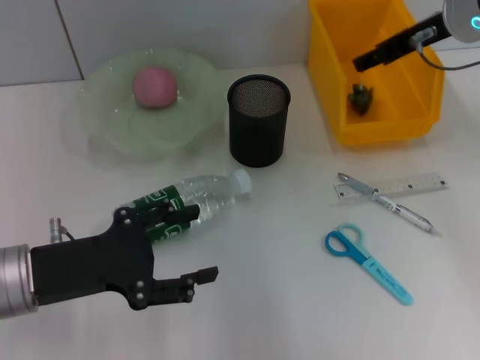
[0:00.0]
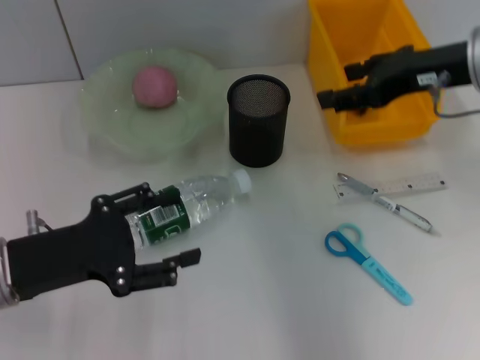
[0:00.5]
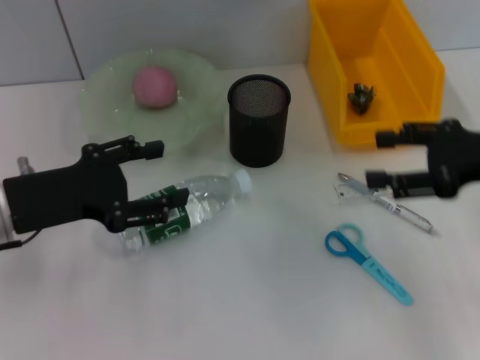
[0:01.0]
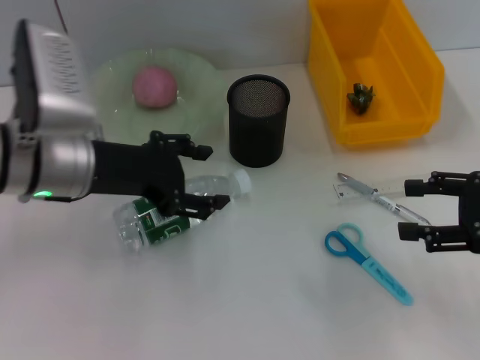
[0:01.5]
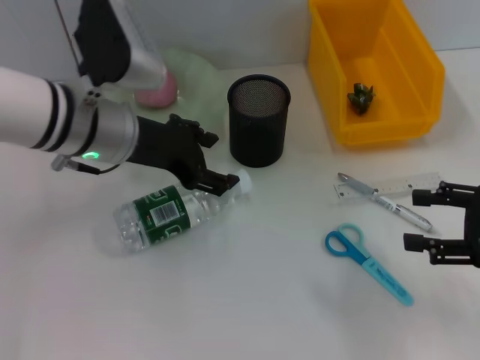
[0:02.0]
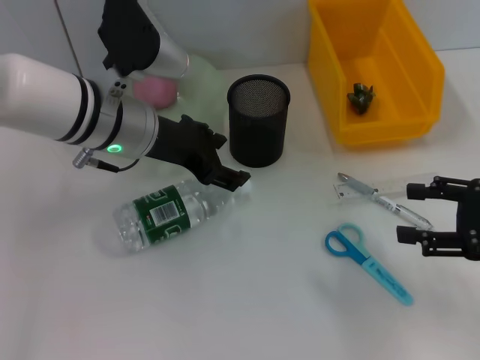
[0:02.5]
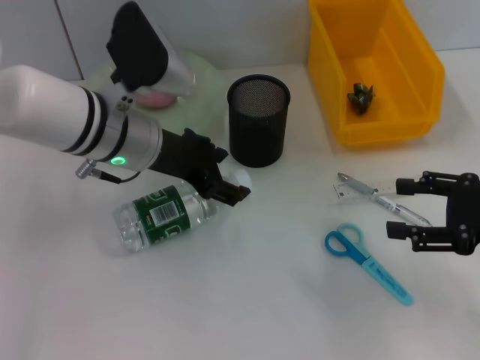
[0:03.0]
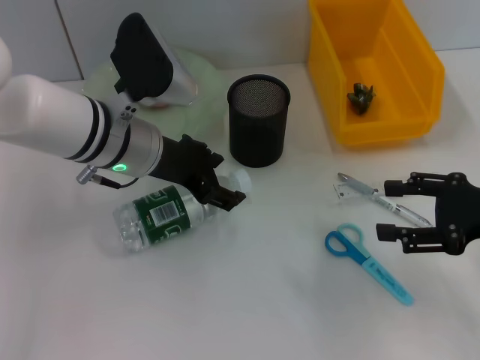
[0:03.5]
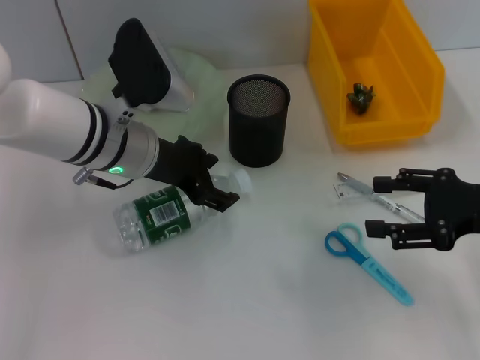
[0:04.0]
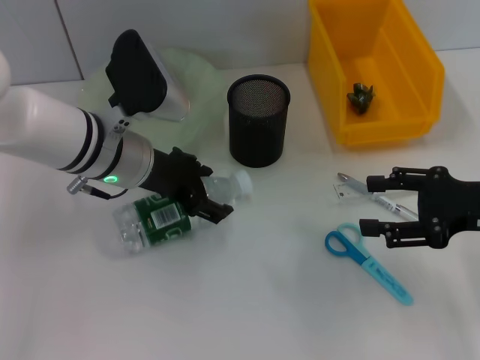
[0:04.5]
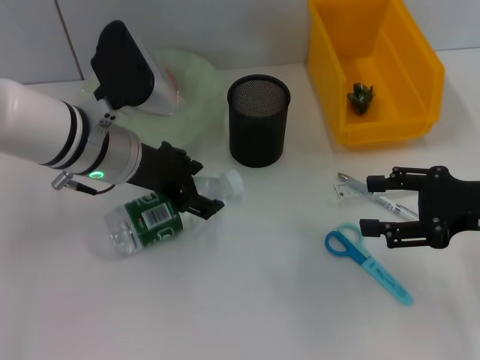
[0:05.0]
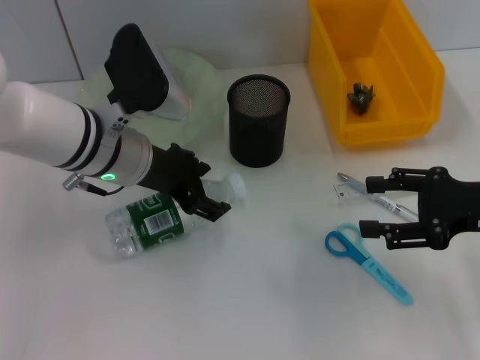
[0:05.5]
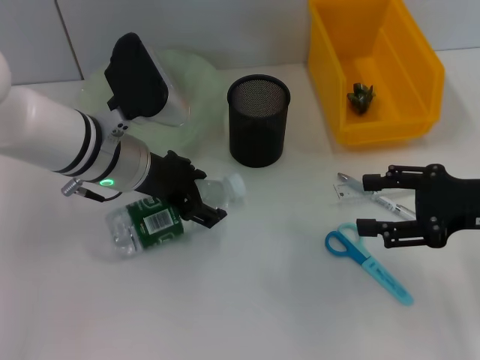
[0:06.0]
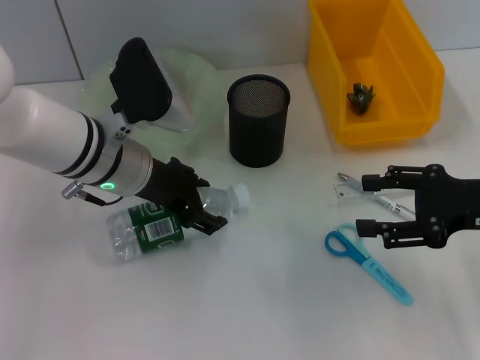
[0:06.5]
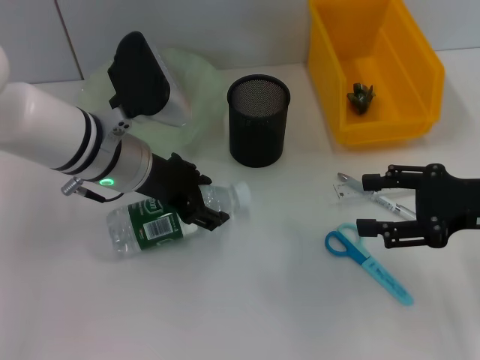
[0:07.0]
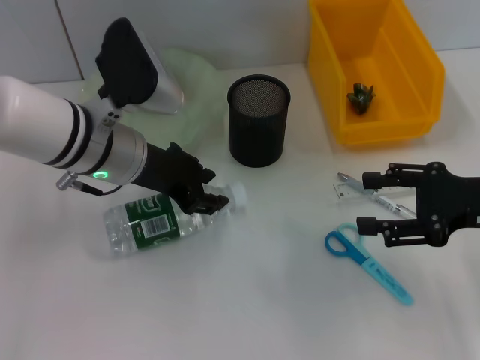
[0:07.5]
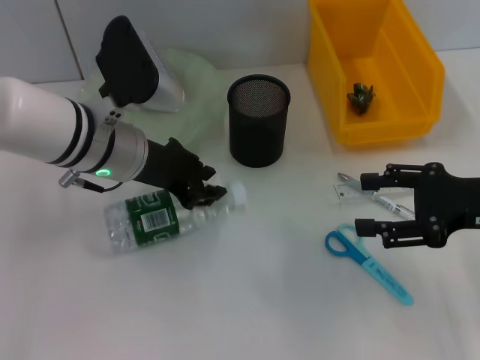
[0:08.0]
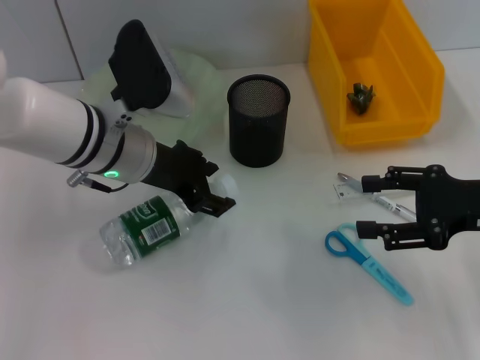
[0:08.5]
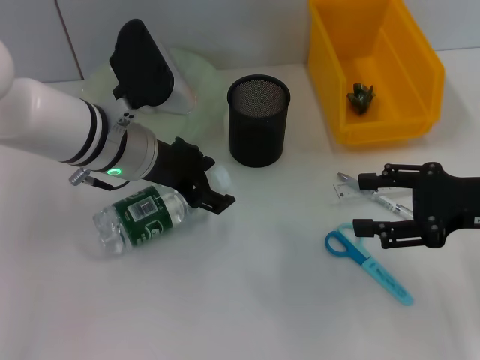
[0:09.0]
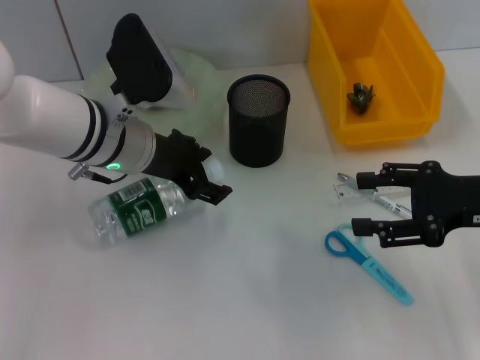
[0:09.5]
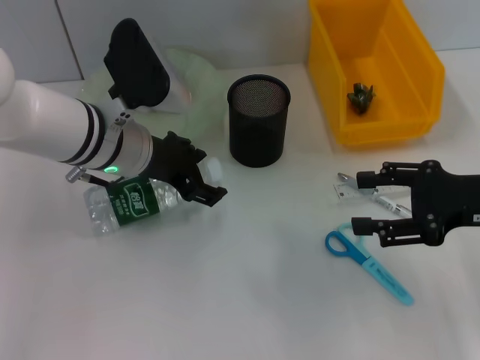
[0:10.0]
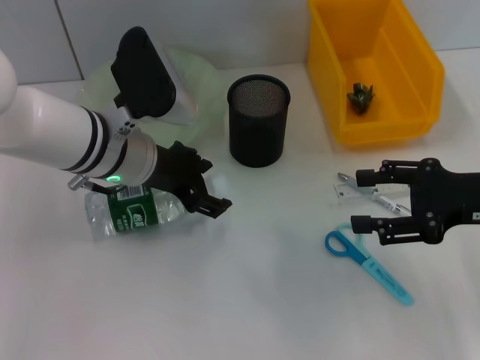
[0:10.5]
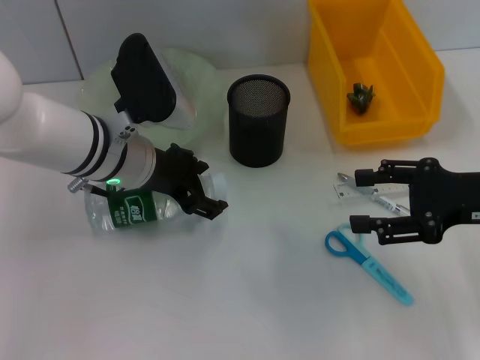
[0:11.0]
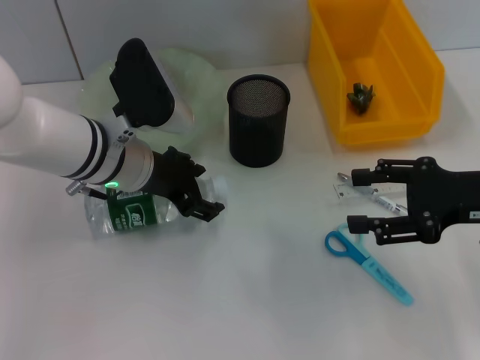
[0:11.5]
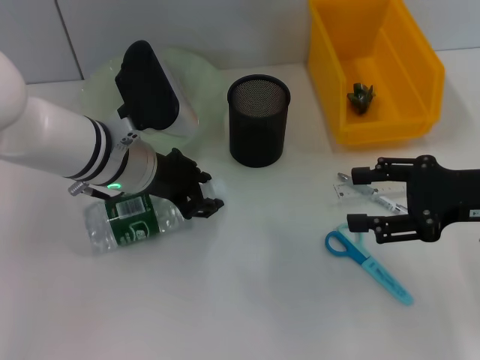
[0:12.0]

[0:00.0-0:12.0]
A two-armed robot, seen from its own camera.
0:00.0 to 0:02.0: The right gripper is displaced backward, downward and to the right by about 25 cm; the left gripper shifts approximately 15 cm forward, to the right and upward.
0:02.0 to 0:06.0: There are only small adjustments of the grippers.
0:06.0 to 0:08.0: The left gripper closes its fingers.
0:08.0 to 0:10.0: The left gripper opens up.
0:10.0 to 0:12.0: The grippers make only small movements.

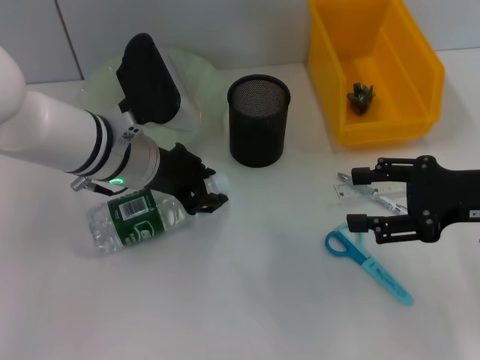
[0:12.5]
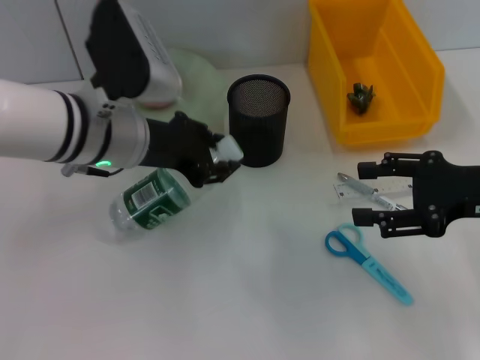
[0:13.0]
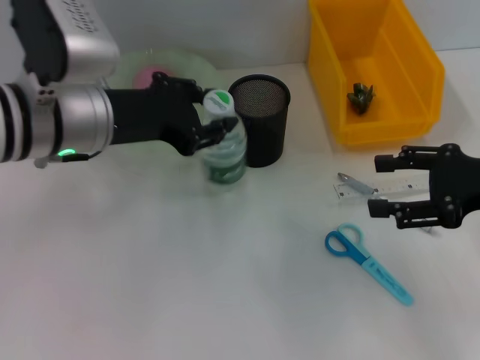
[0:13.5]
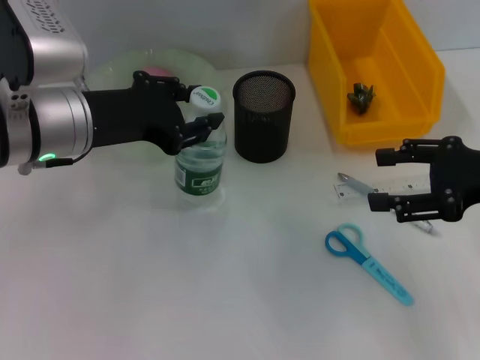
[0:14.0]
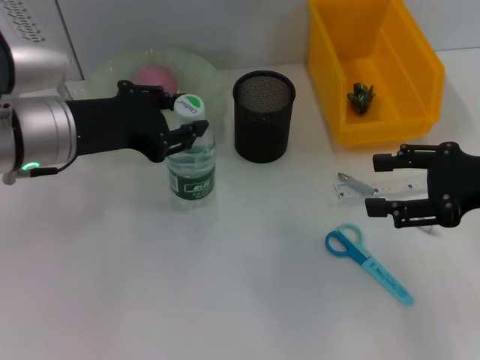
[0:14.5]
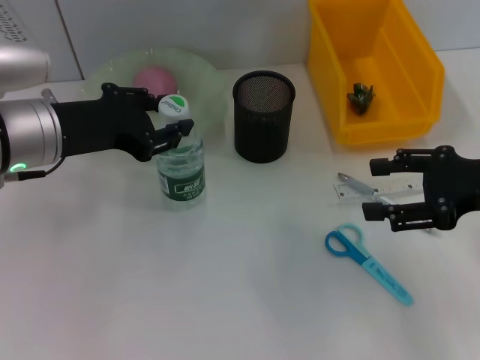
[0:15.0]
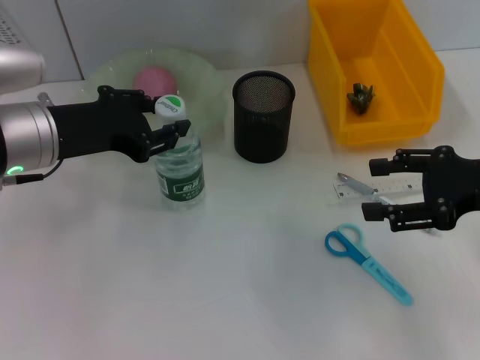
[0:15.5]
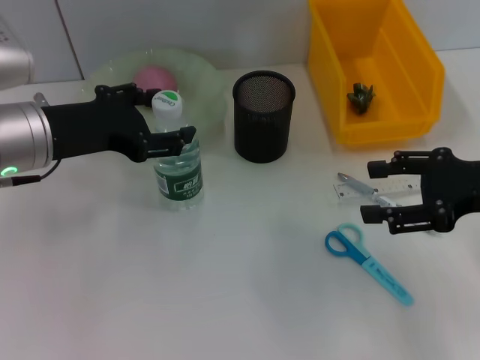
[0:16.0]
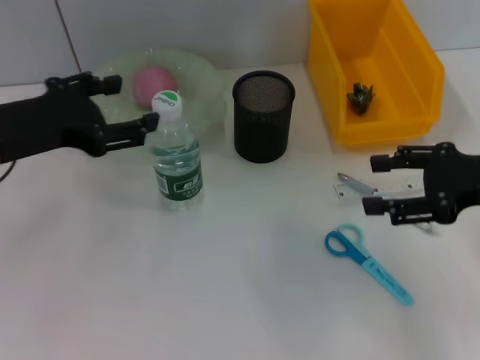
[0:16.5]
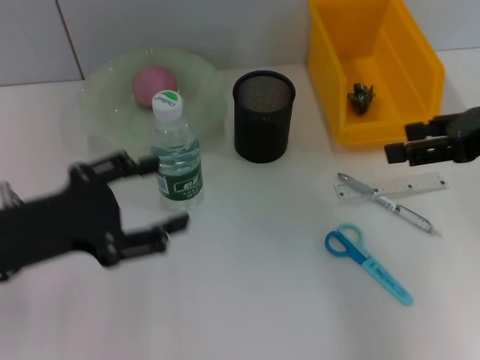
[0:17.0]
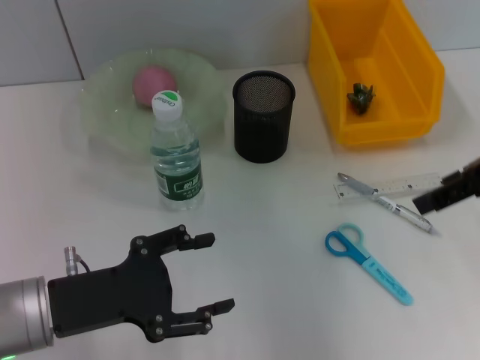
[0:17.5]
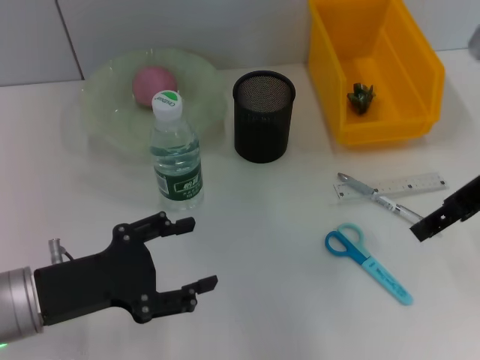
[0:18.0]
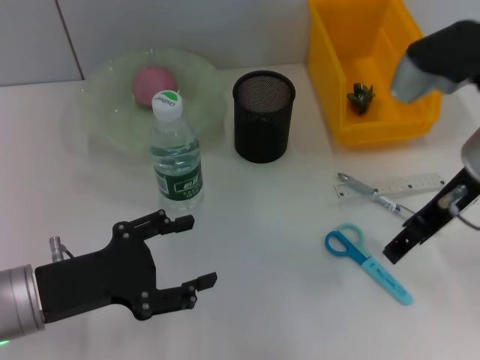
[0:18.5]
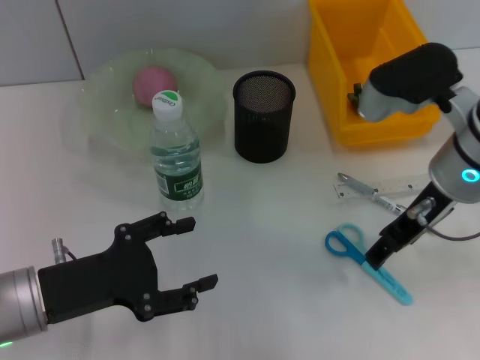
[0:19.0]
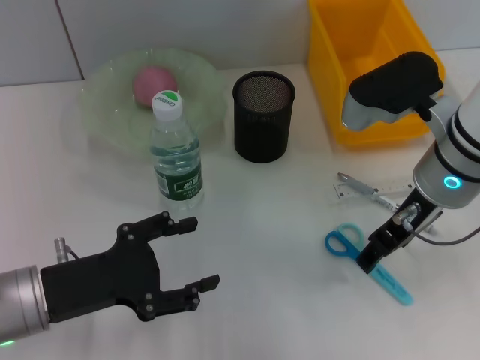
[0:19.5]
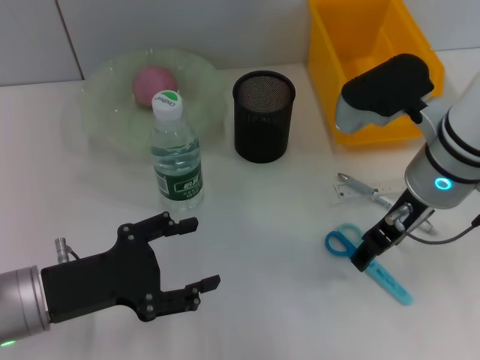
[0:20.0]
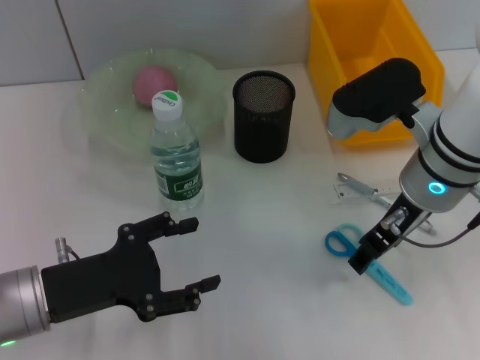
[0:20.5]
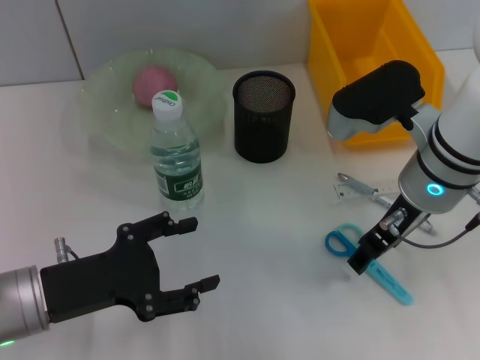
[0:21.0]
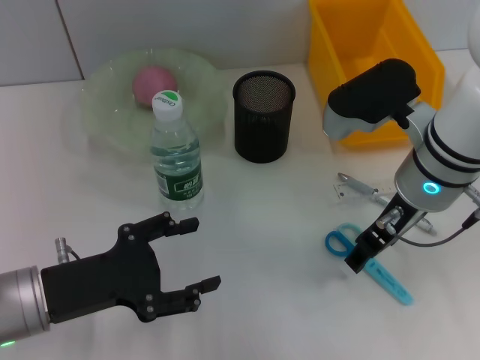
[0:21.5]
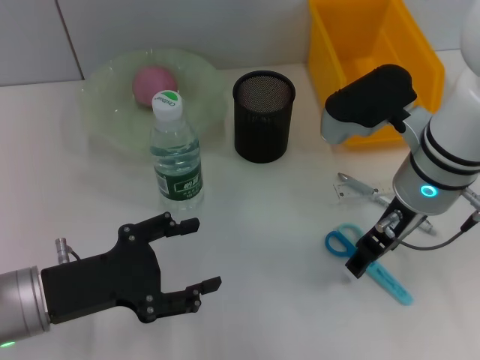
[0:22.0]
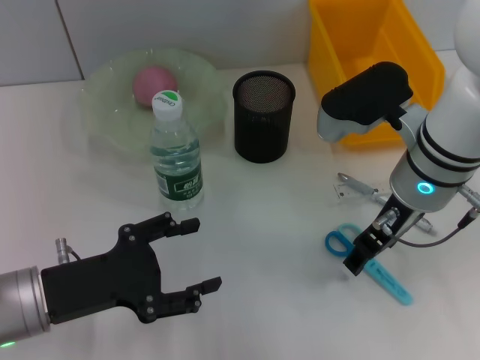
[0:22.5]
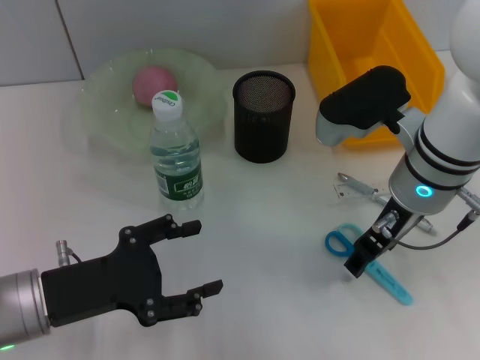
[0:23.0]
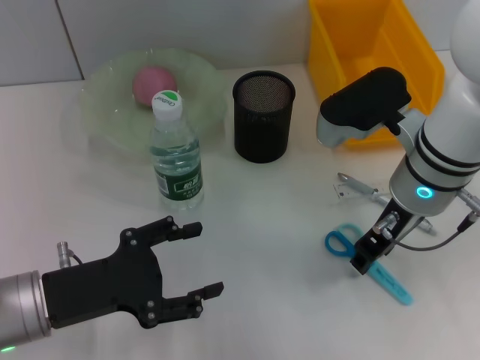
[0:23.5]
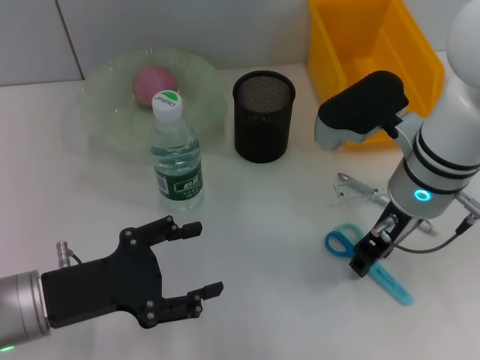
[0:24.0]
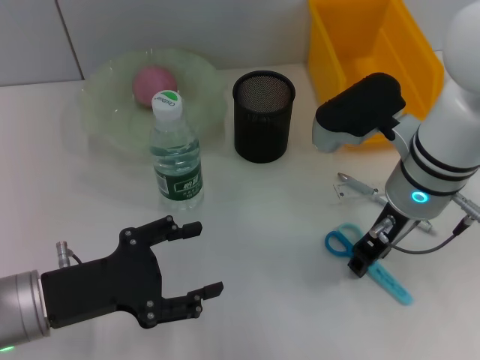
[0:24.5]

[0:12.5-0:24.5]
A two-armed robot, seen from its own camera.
Step, 0:12.5 to 0:16.0: Place the water bottle on the table with the left hand.
0:12.5 to 0:14.5: The left gripper is displaced to the left and upward by approximately 10 cm.
0:14.5 to 0:16.5: The left gripper heads to the left, covering approximately 5 cm, and opens up.
0:16.5 to 0:18.5: The right gripper shifts roughly 10 cm to the left; the left gripper travels downward and backward by about 15 cm.
0:18.5 to 0:20.5: The right gripper shifts by approximately 5 cm.
0:20.5 to 0:22.5: The two grippers keep their place.
0:22.5 to 0:24.5: Both grippers stay put.

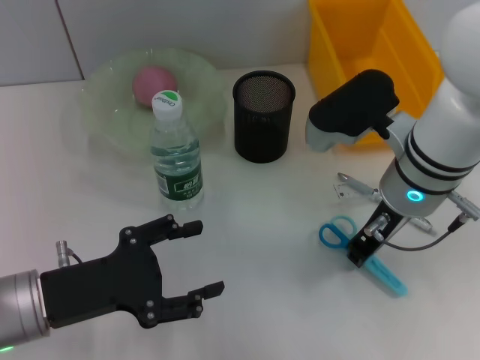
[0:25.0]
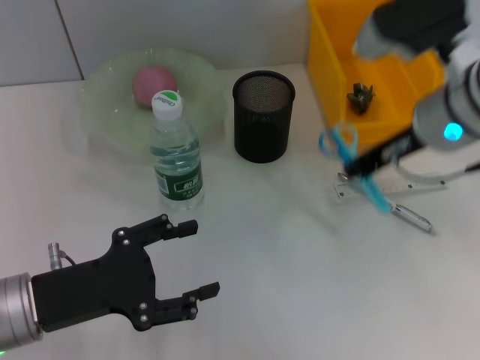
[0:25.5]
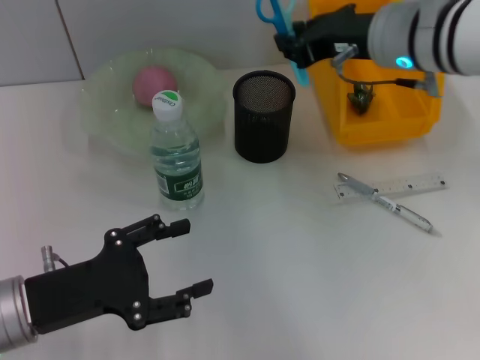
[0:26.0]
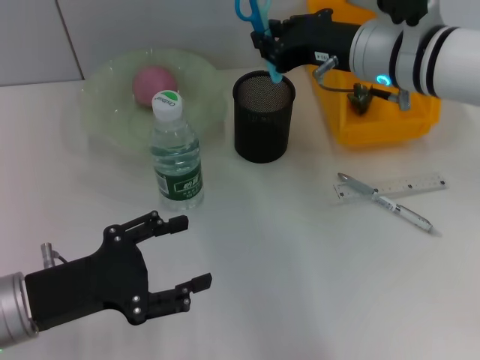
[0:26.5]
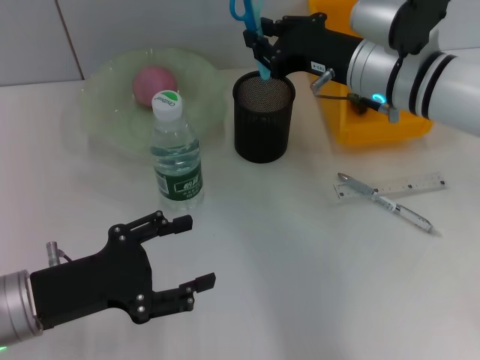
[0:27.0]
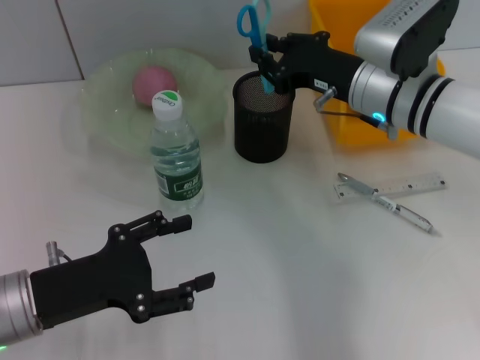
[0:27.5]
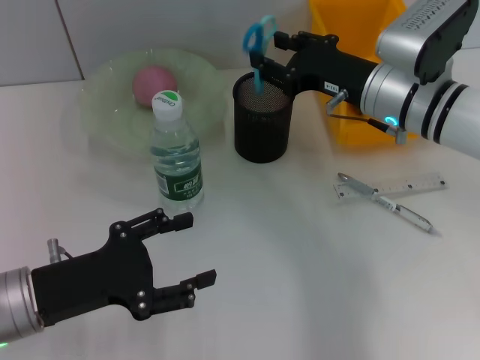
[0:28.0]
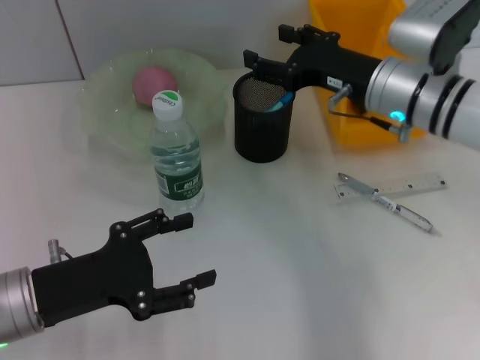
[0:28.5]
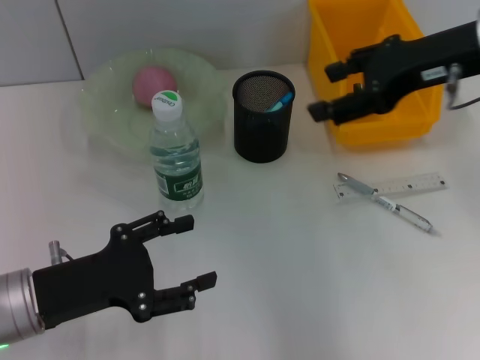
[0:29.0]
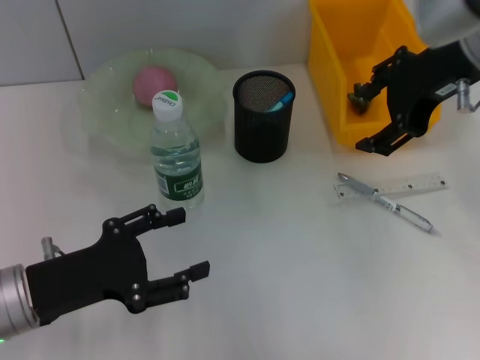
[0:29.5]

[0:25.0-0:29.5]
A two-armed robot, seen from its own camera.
Step, 0:25.0 to 0:28.0: Place the blue scissors into the pen holder with the right hand.
0:25.0 to 0:27.0: The right gripper heads forward, covering some 5 cm.
0:27.0 to 0:29.5: The right gripper moves upward, roughly 10 cm, and opens.
